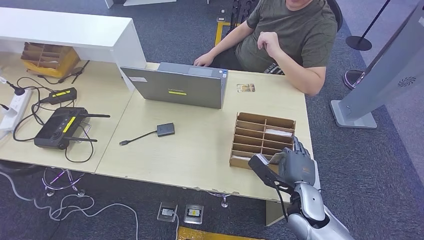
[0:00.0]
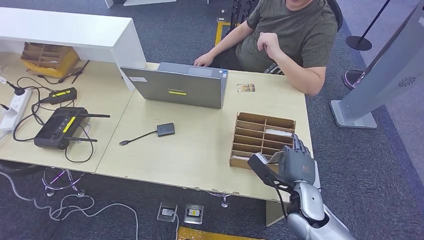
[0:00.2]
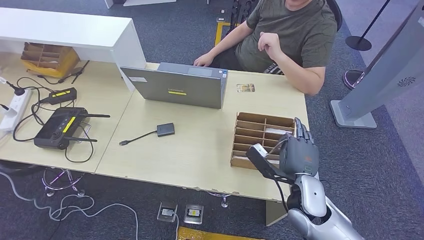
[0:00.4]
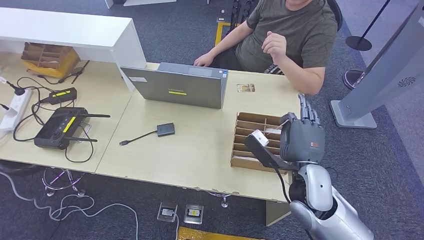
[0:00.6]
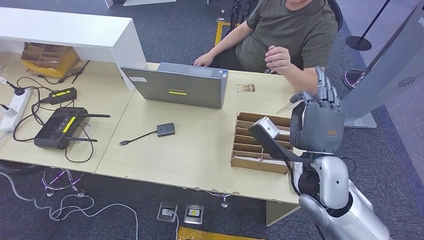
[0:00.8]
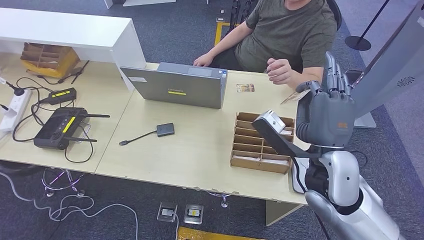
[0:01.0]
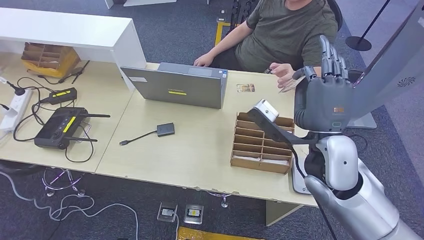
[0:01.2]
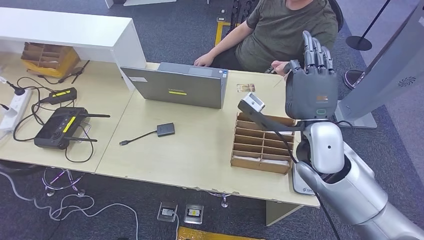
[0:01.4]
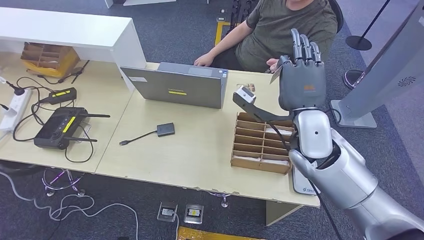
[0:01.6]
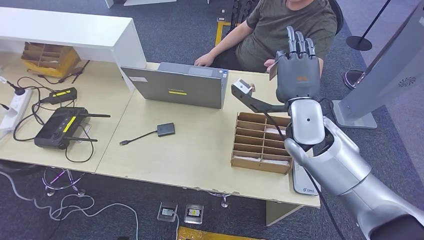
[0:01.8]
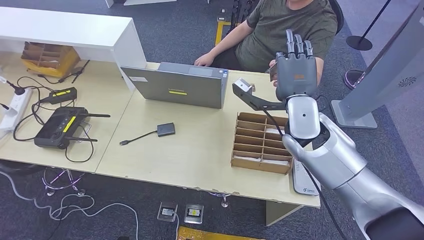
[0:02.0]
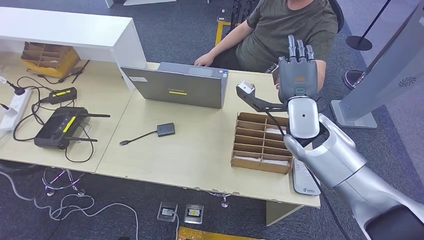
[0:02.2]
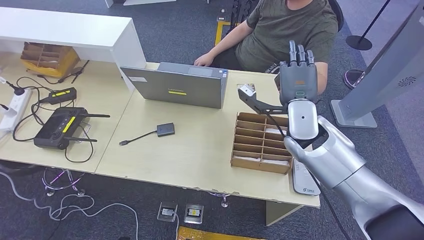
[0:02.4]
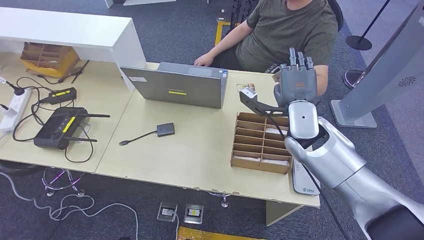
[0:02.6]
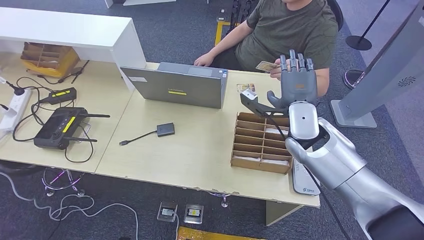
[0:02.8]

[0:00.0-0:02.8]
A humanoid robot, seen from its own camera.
Step, 0:01.4 to 0:02.8: Hand the room key to the person.
0:00.0 to 0:01.4: The right hand heads upward, covering roughly 20 cm.
0:01.4 to 0:02.8: The right hand moves forward, about 5 cm.
